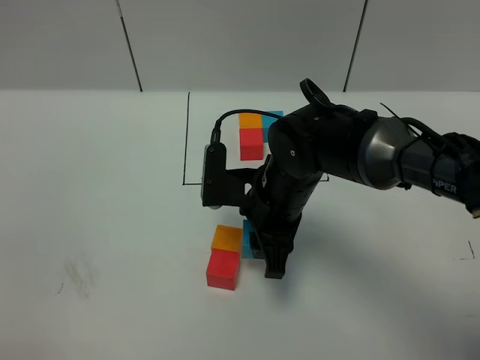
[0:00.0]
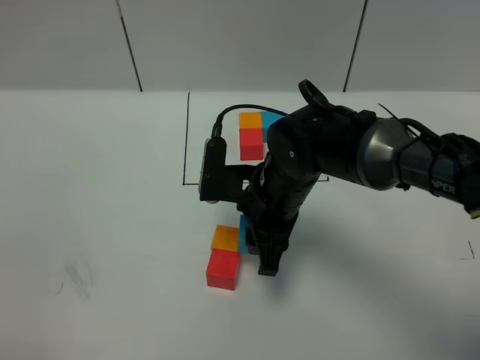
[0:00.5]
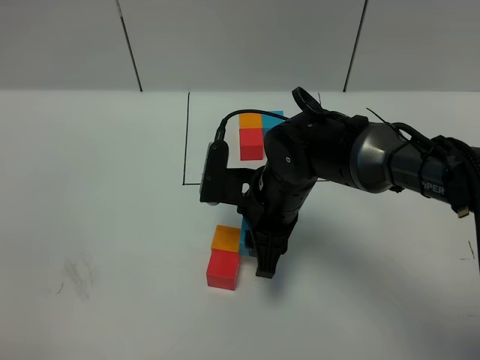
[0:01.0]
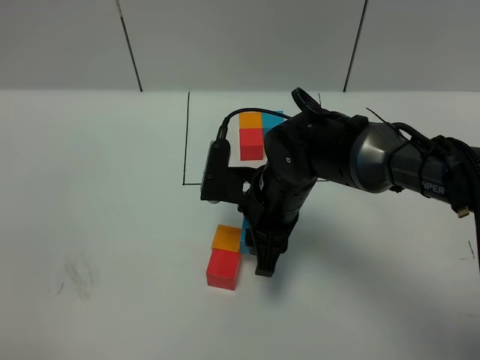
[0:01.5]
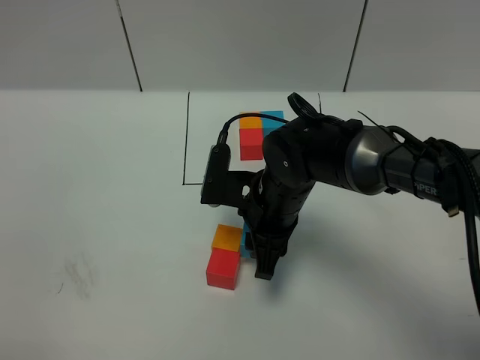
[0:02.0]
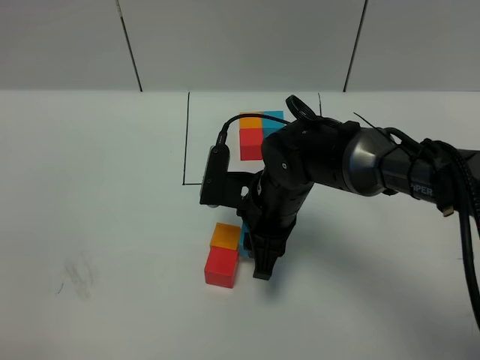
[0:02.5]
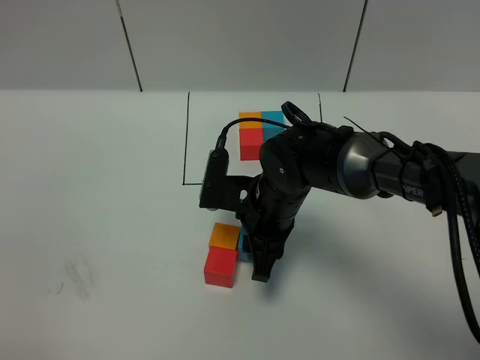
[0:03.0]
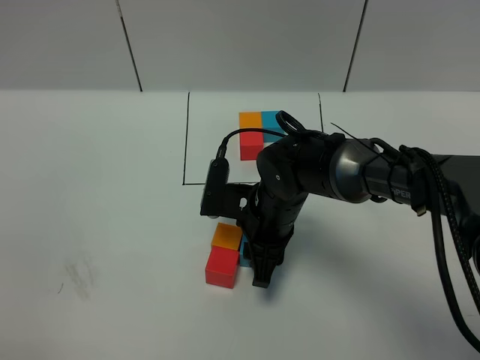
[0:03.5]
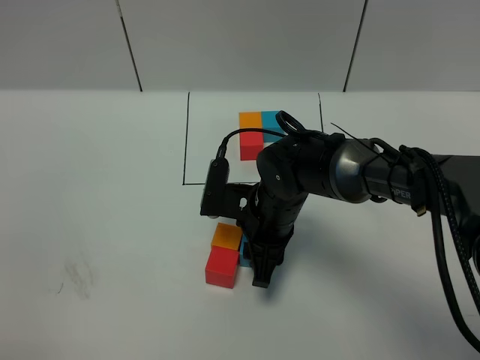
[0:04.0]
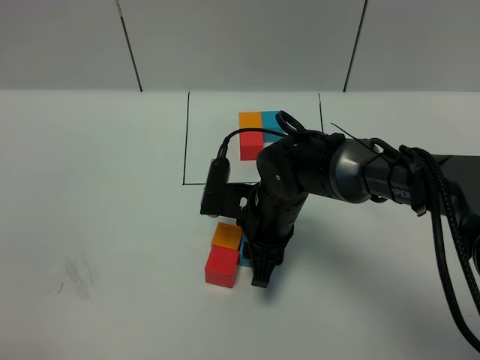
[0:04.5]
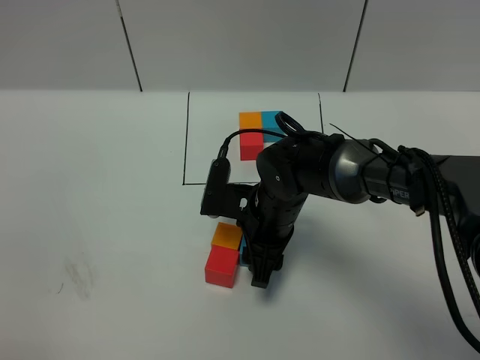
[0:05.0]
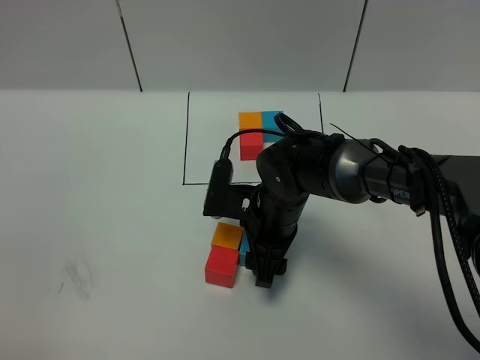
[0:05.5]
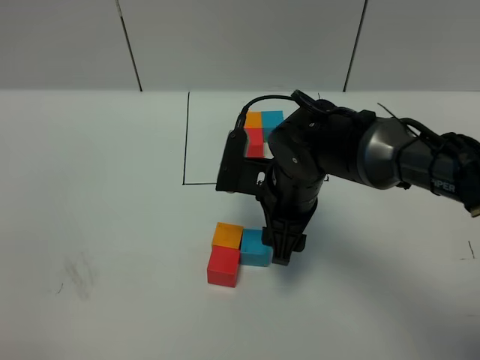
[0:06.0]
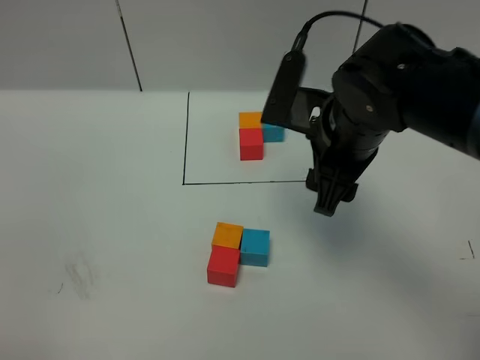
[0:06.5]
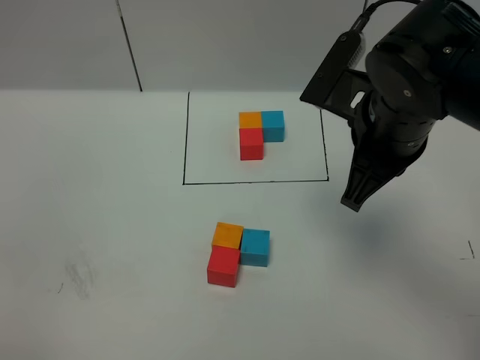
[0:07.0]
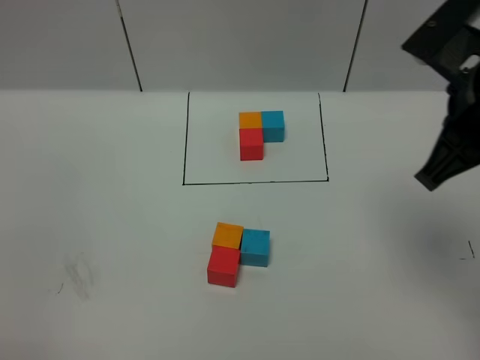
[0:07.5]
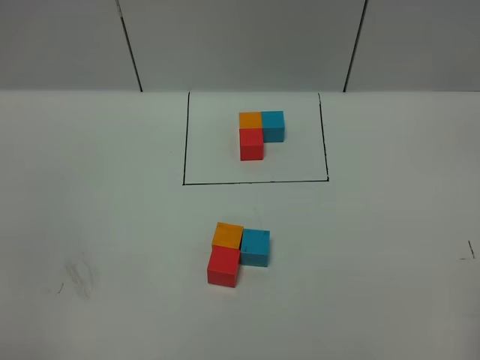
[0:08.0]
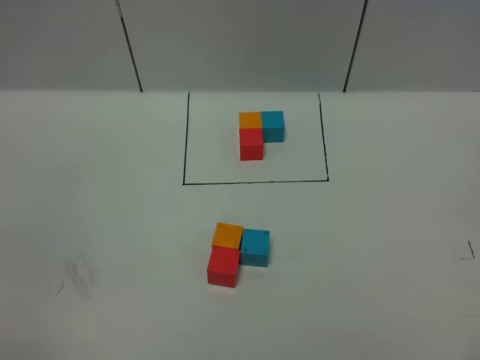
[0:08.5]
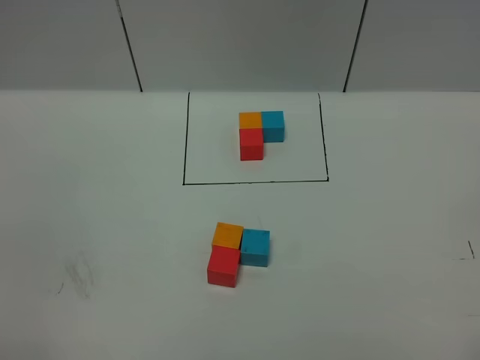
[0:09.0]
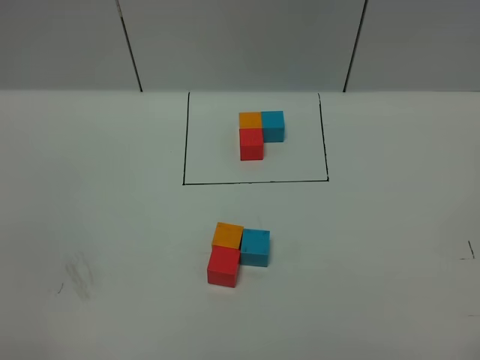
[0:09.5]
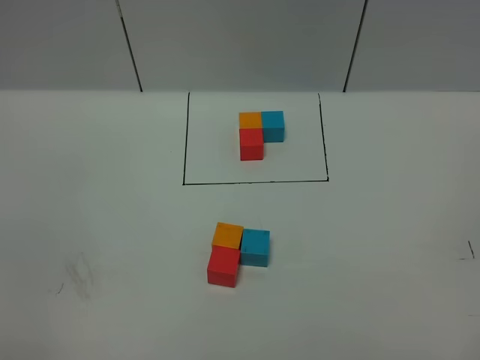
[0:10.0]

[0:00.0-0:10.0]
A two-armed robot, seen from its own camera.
Task of the whole recording: According to the building block template in front, assemble the scattered blocks together.
Step, 0:00.0 to 0:06.0: Put the blue cube on the right of the orange cube.
0:00.0 to 0:04.0: The grippers stay close to where they were, moving slightly.
0:04.0 to 0:06.0: The right gripper is displaced upward by roughly 5 cm.
0:06.0 to 0:08.0: The right gripper moves to the right, backward and upward, about 35 cm, and closes.

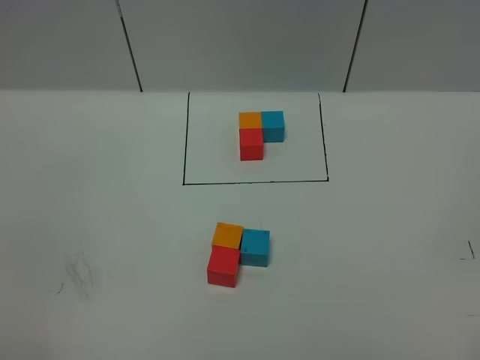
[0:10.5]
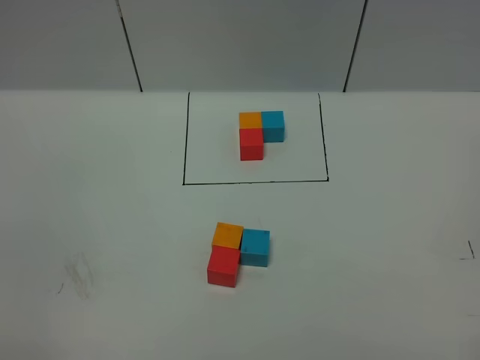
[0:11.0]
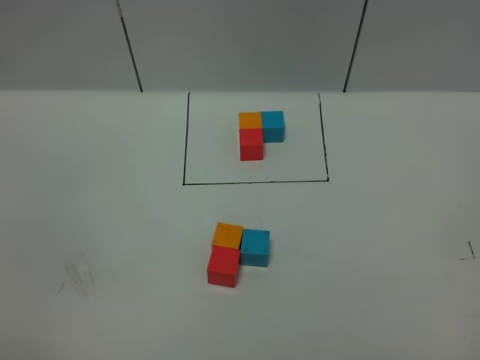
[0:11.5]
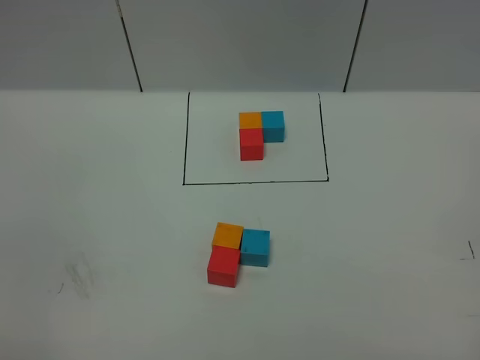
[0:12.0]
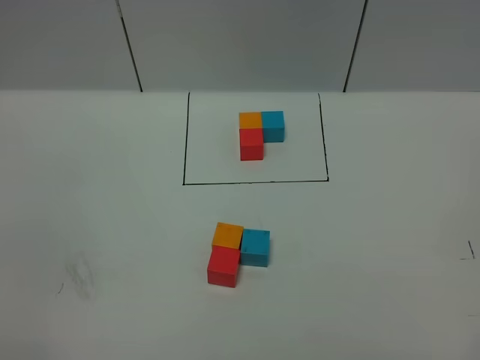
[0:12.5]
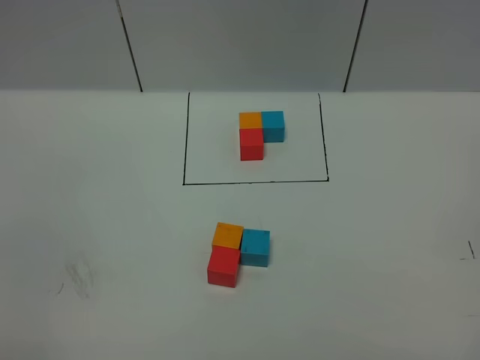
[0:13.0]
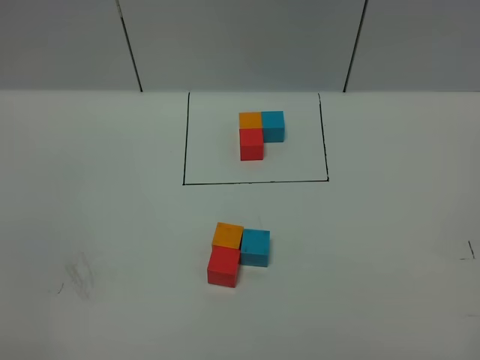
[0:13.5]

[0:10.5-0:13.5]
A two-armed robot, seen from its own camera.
Task of the whole recording: According to the building block template in front, assemble the scattered blocks together.
0:12.0 to 0:13.5: Both grippers stay about where they are.
